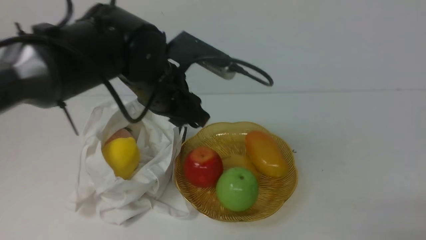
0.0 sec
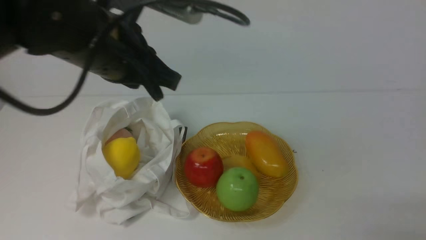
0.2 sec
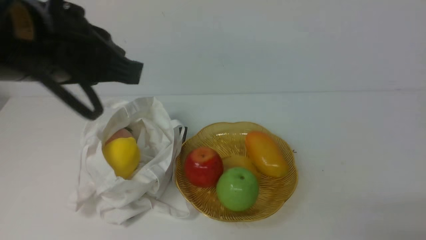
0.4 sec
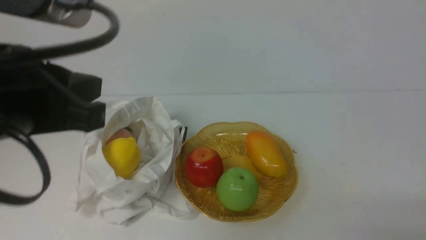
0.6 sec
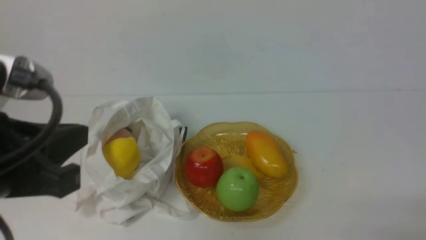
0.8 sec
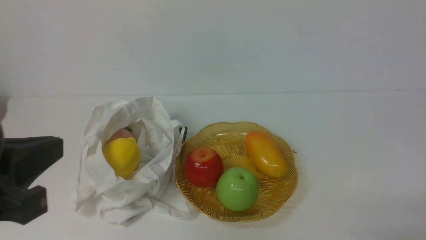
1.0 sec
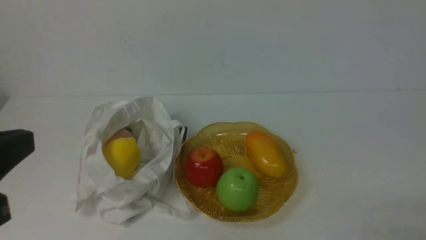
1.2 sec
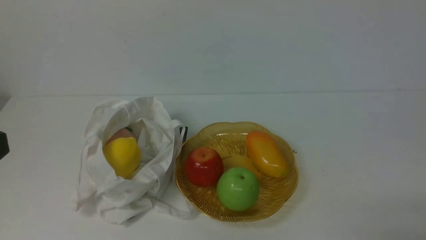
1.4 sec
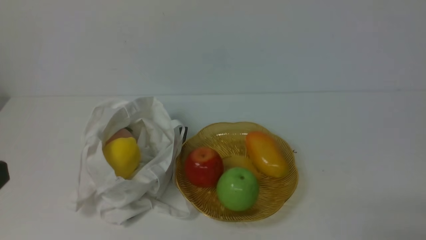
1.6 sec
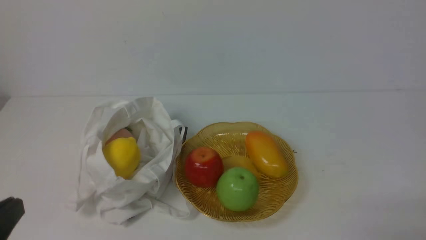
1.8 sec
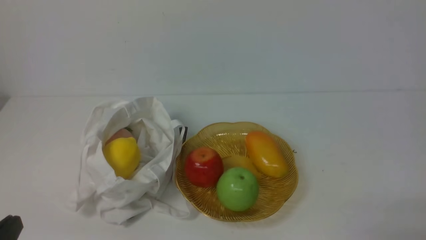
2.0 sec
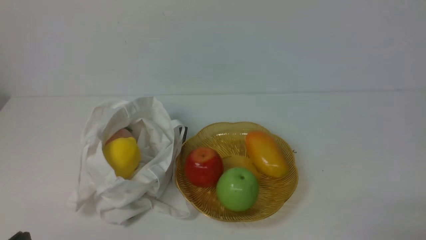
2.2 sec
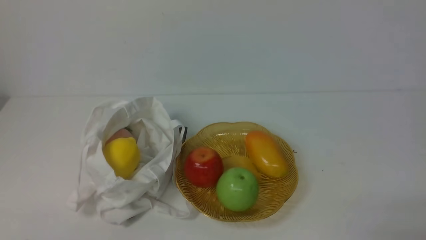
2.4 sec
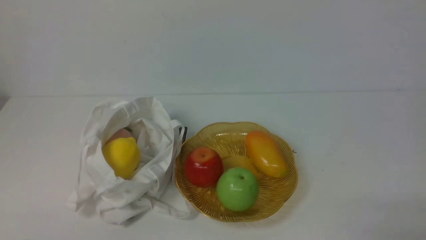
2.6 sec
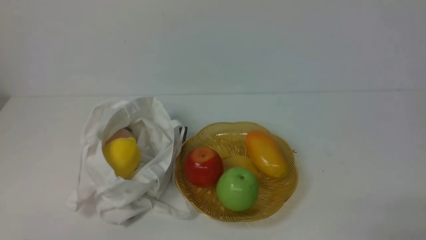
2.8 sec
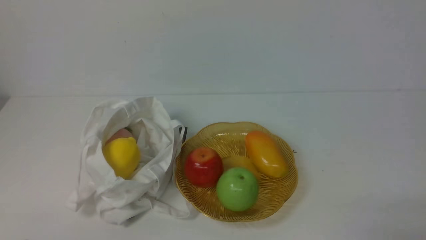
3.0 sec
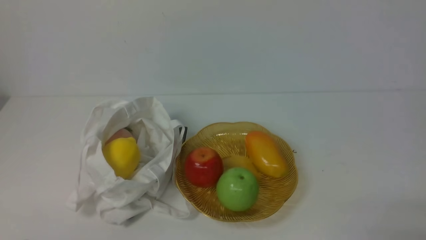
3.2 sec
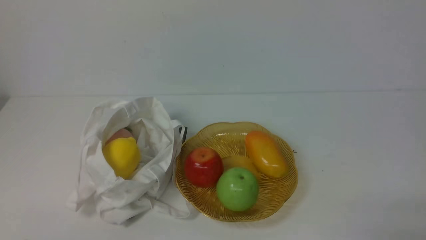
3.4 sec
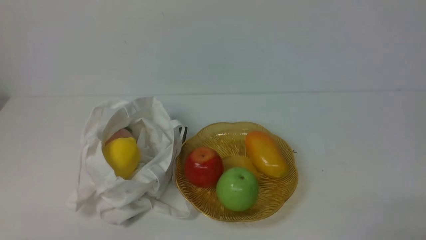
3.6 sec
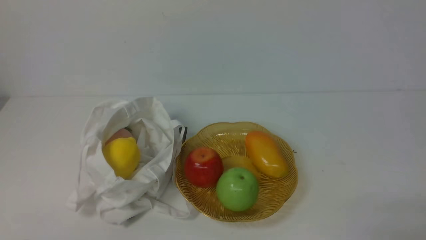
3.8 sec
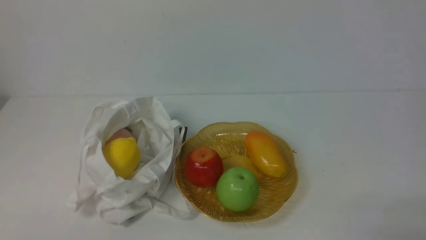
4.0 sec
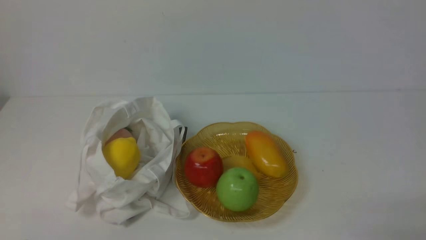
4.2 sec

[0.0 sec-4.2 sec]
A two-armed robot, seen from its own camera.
0.0 sec to 1.4 sec: The left gripper shifts approximately 30 cm backward and to the left, and closes its fingers.
2.8 sec to 4.2 sec: Both grippers stay about where they are.
